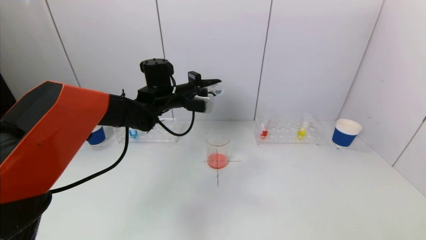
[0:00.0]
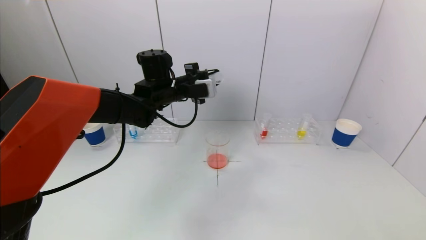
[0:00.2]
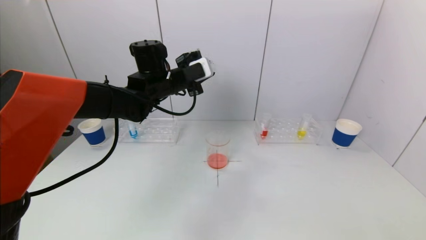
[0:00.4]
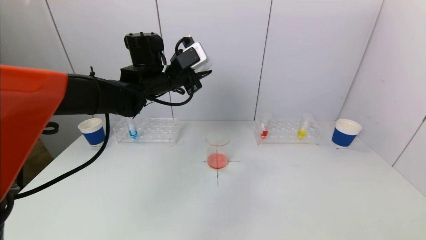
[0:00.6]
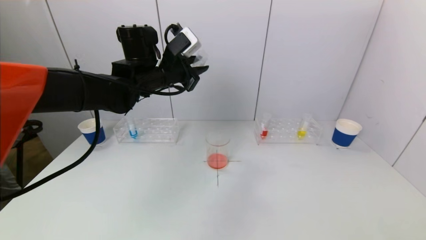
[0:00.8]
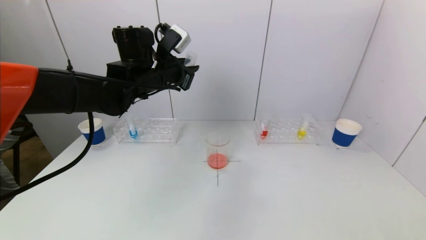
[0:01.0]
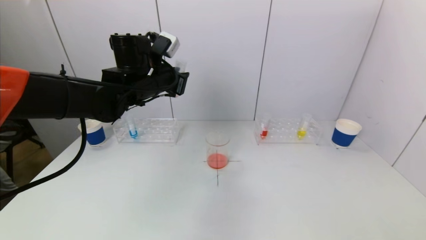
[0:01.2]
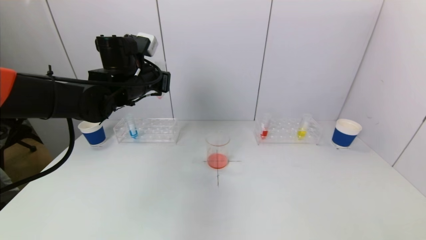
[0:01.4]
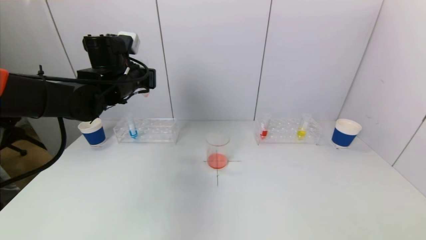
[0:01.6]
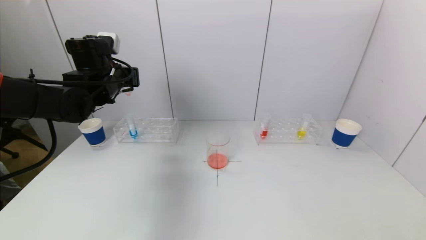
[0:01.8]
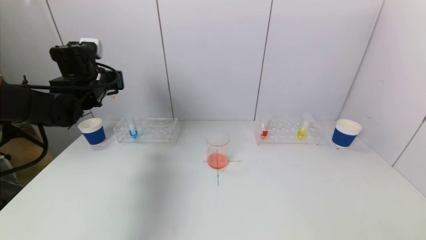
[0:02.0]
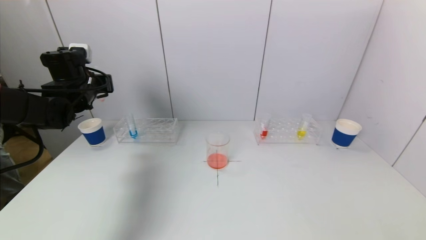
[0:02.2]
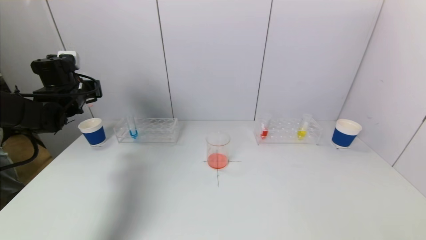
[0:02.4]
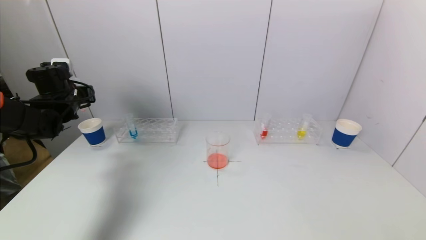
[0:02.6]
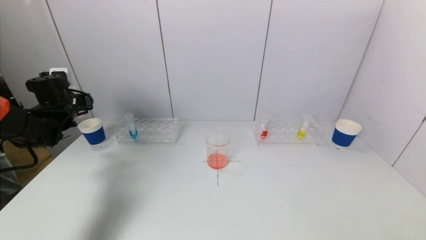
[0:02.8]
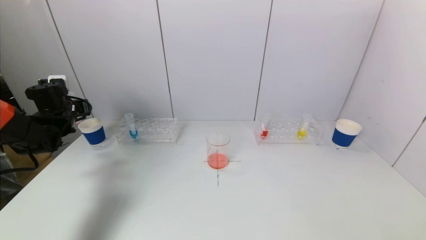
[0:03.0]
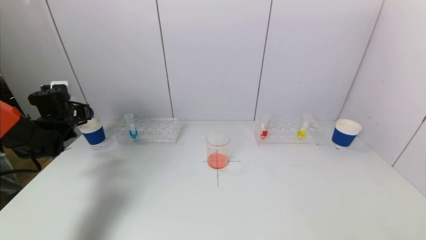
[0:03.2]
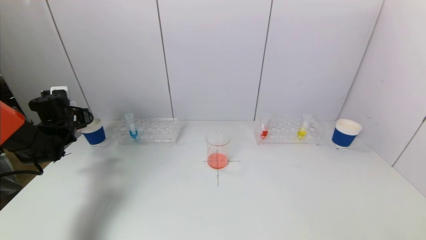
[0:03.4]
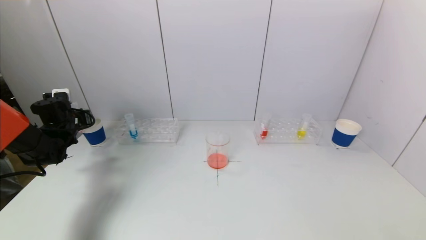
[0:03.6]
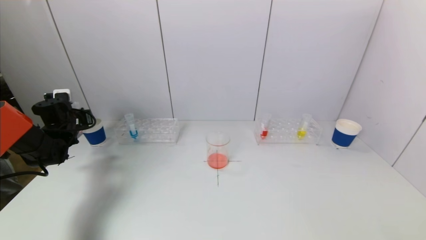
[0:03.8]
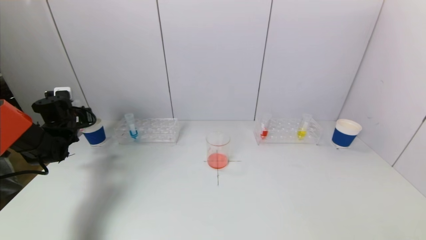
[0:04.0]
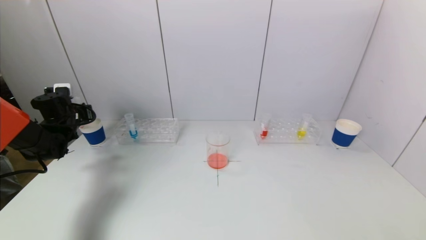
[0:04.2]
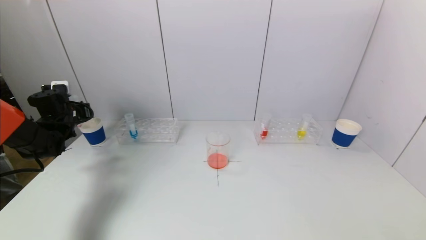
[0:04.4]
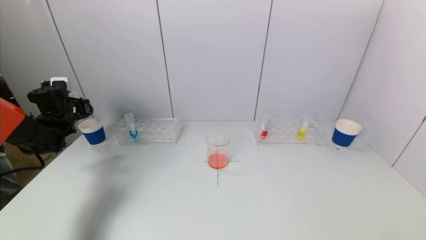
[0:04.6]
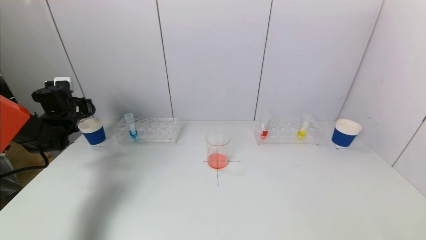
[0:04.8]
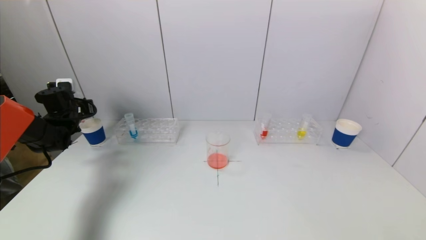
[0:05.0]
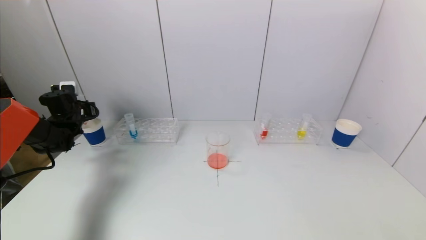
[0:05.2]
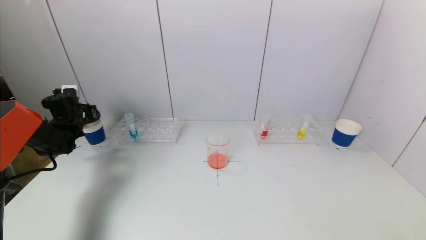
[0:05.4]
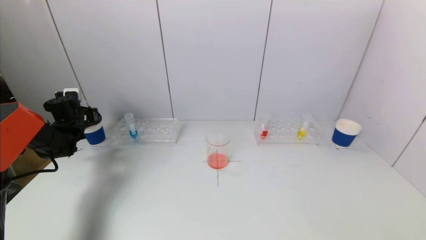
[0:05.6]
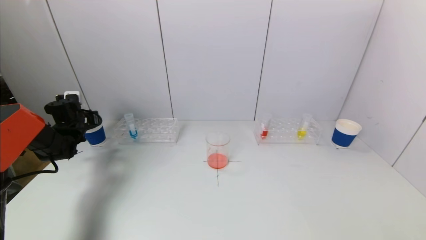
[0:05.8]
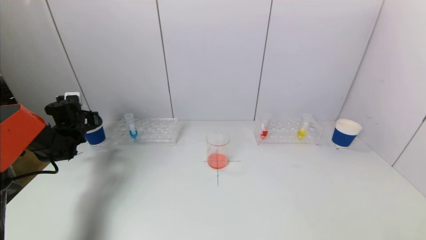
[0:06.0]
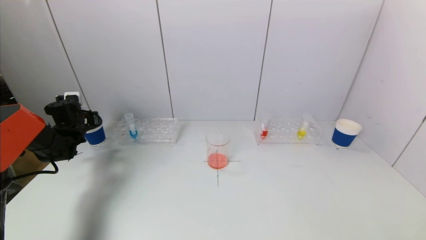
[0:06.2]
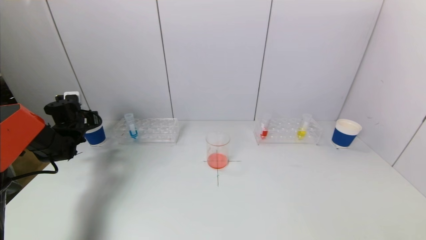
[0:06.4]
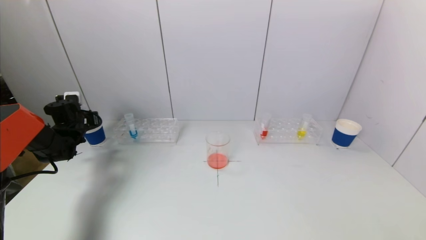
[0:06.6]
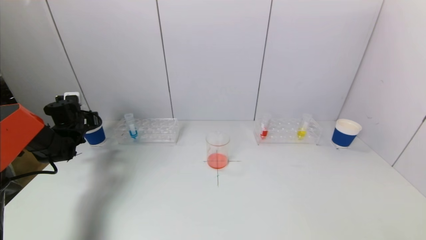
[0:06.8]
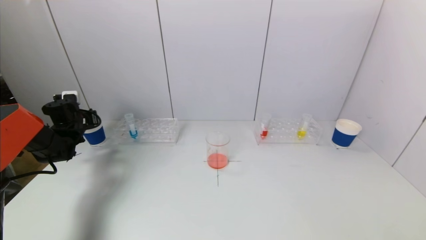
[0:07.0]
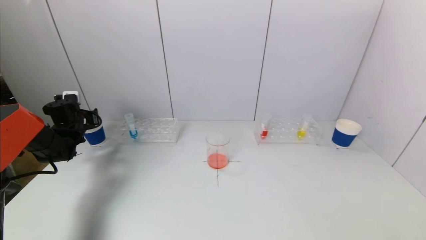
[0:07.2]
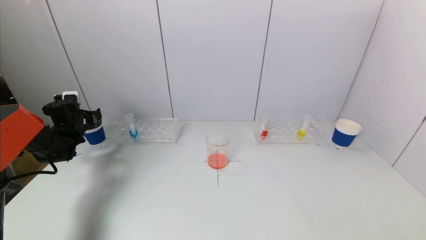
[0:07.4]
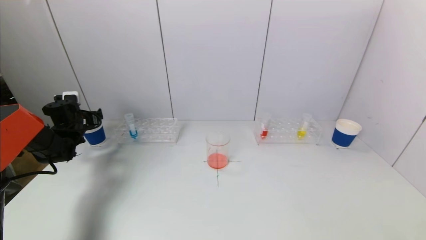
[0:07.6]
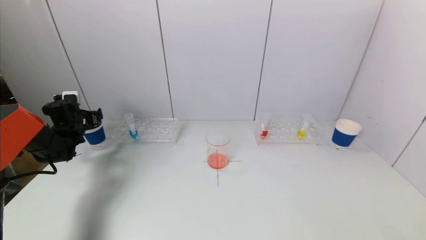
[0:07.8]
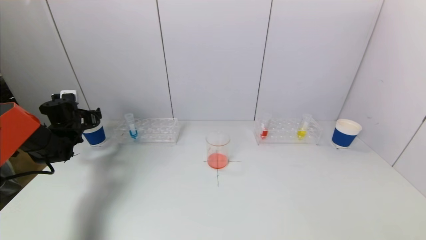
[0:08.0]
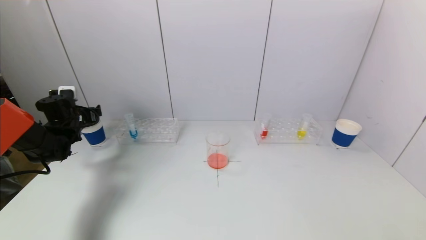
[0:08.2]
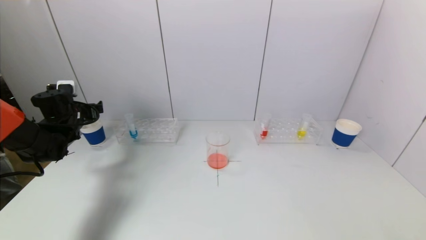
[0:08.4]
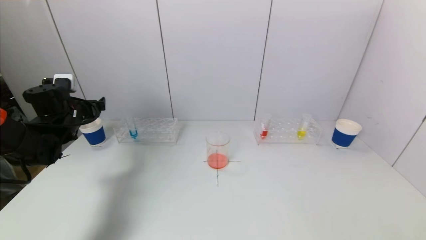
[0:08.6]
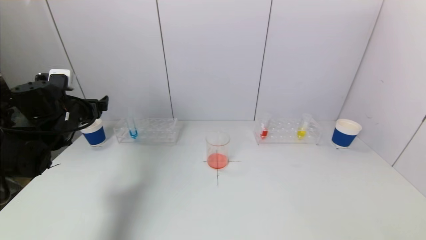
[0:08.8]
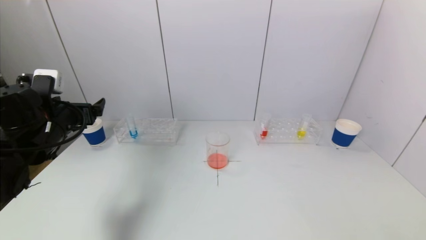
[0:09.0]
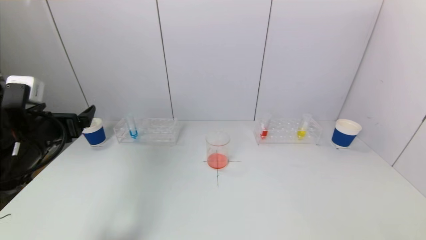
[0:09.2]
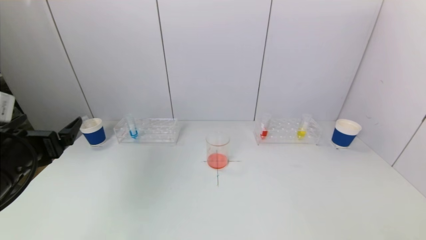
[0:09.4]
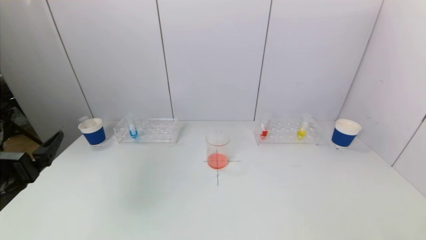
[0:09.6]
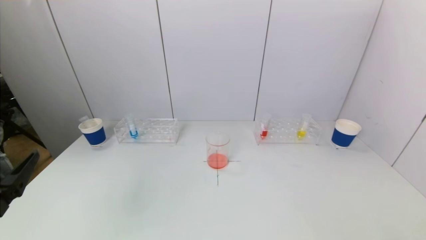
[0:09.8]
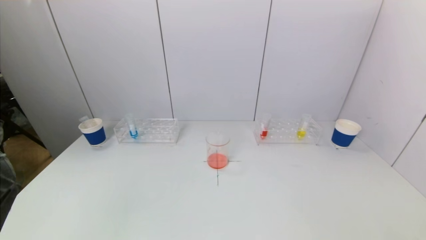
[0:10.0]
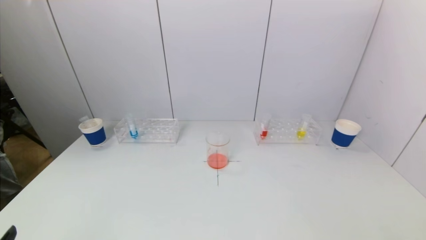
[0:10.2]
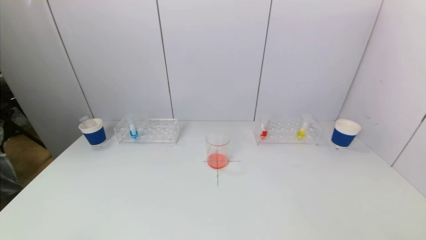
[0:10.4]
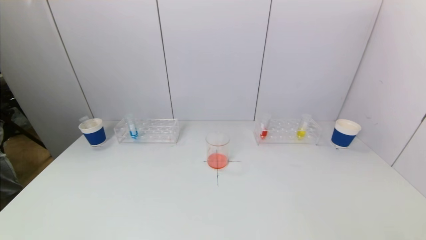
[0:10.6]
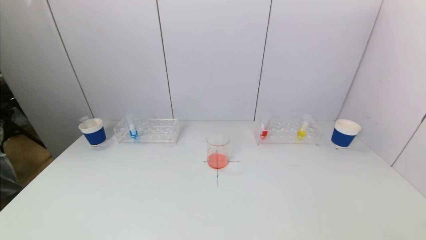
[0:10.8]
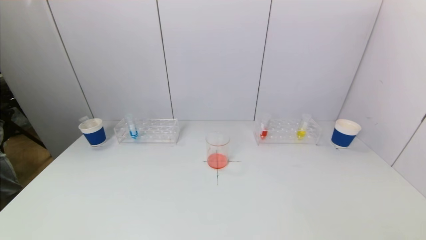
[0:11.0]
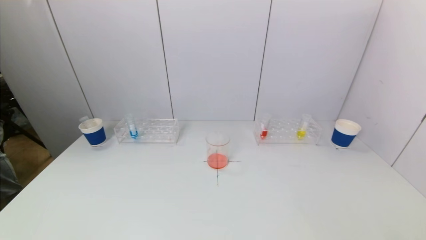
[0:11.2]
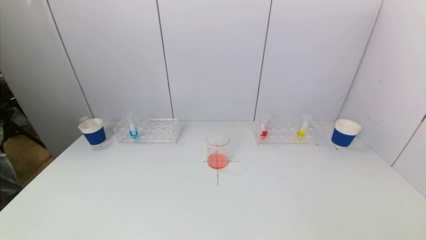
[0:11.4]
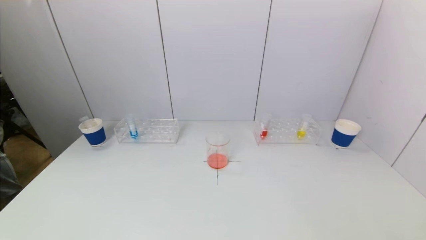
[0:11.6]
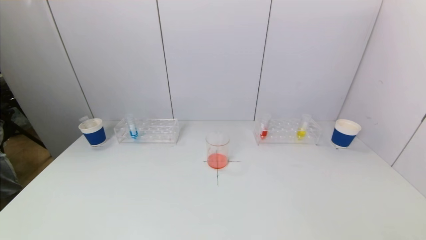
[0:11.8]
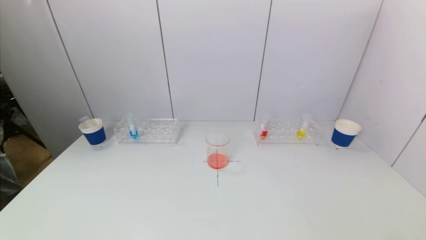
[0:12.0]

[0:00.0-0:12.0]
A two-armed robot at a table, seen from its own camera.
Task of the whole recording: pick up a test tube with pigment on left test tube rack and a test tube with pigment on right test tube rack by grippers and pour them into the beaker.
Step, 0:00.0 to 0:07.4: Place the test tube into the paper cup with the left gripper.
0:00.0 to 0:01.6: The left gripper shifts approximately 10 cm to the left.
0:01.6 to 0:03.0: The left gripper is displaced to the left and downward by some 20 cm.
0:03.0 to 0:04.4: The grippers make only small movements.
0:04.4 to 0:06.0: The left gripper shifts by about 5 cm.
0:06.0 to 0:07.6: The left gripper opens up.
0:07.6 to 0:09.0: The left gripper travels backward, to the right and upward by some 25 cm.
0:09.0 to 0:10.4: The left gripper is displaced backward by some 30 cm.

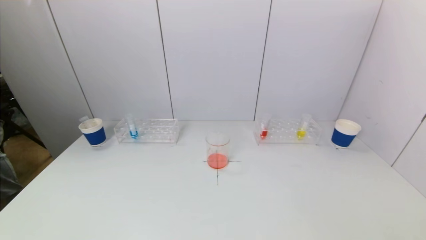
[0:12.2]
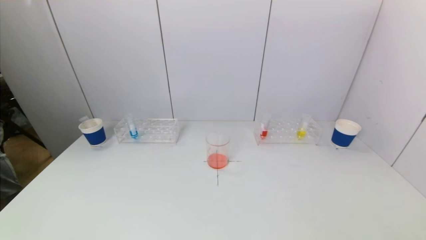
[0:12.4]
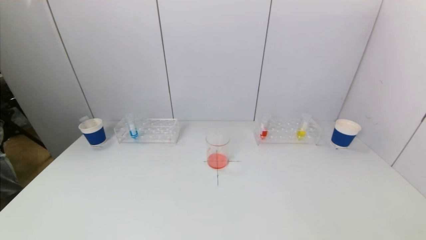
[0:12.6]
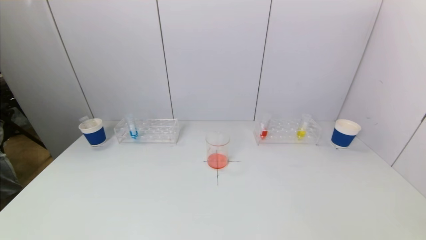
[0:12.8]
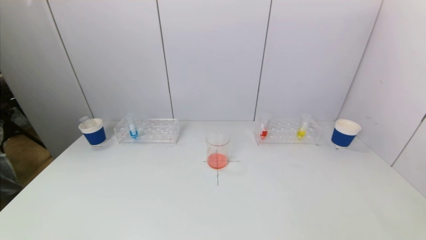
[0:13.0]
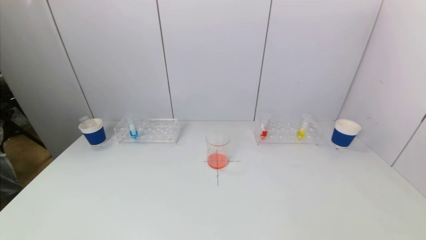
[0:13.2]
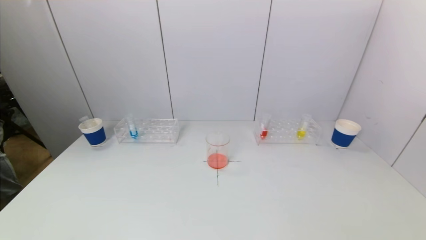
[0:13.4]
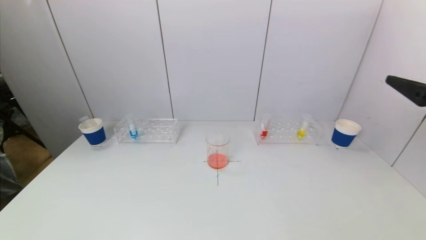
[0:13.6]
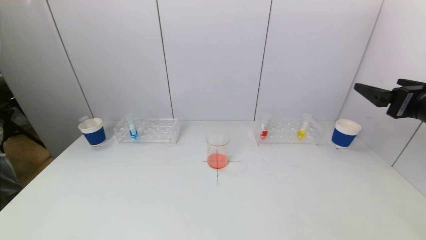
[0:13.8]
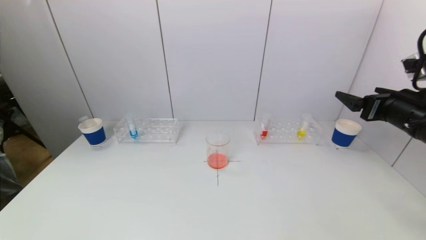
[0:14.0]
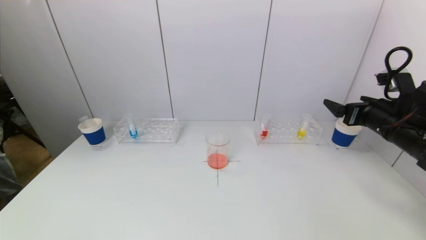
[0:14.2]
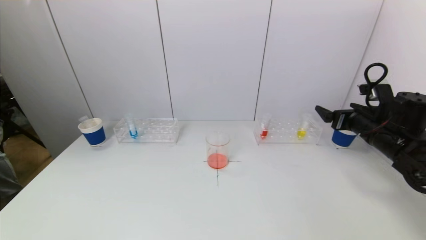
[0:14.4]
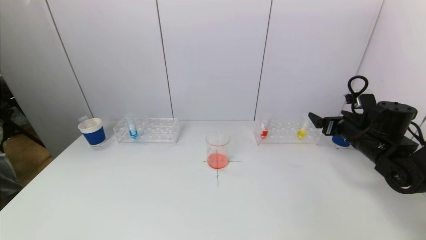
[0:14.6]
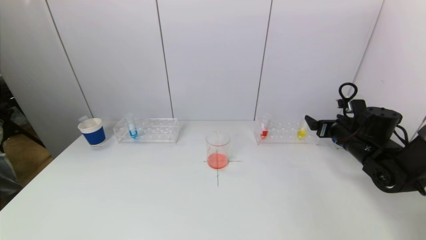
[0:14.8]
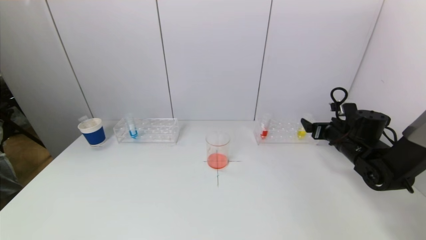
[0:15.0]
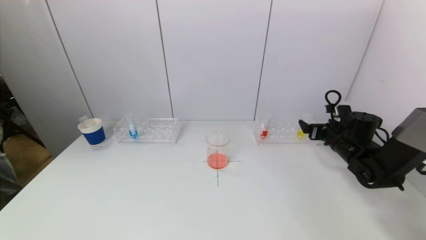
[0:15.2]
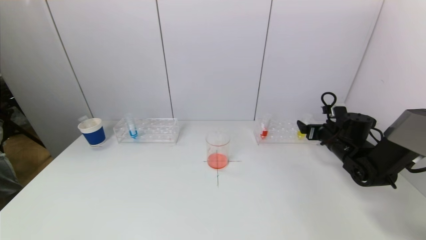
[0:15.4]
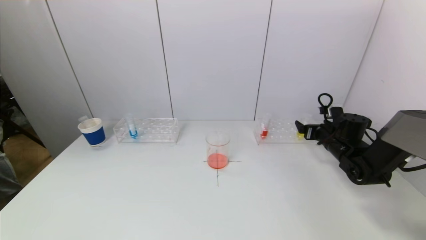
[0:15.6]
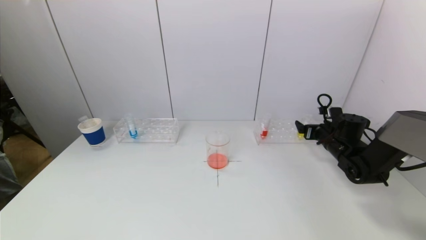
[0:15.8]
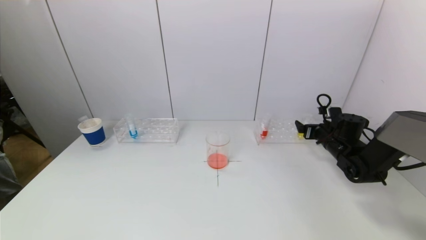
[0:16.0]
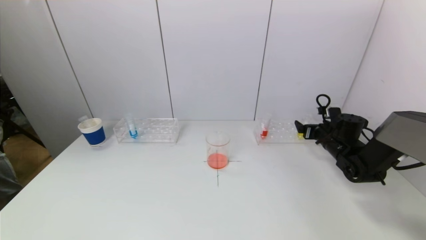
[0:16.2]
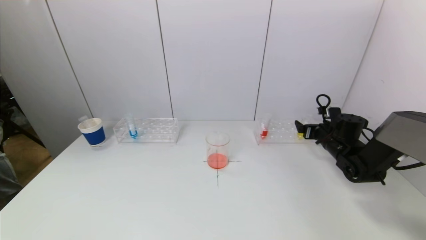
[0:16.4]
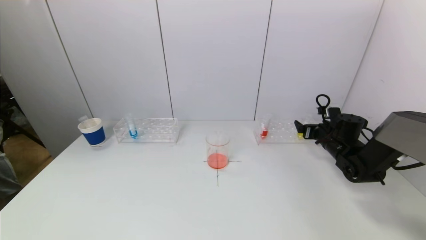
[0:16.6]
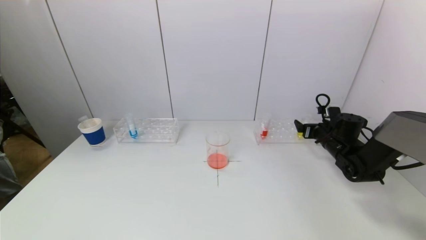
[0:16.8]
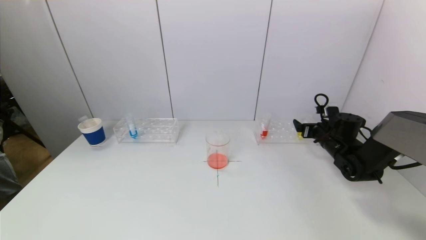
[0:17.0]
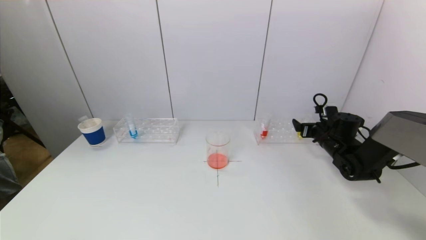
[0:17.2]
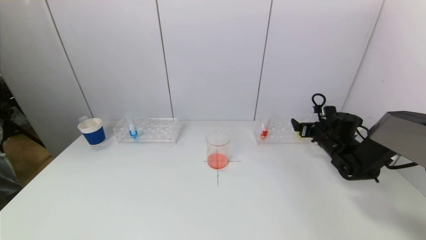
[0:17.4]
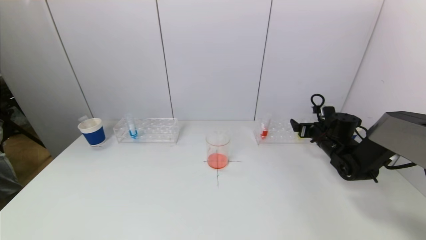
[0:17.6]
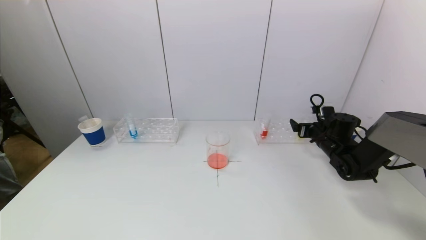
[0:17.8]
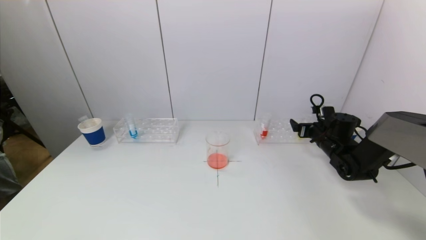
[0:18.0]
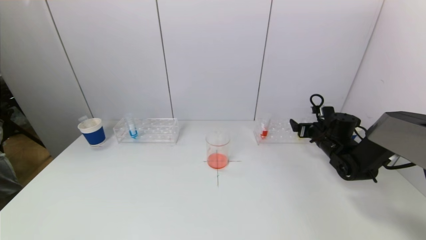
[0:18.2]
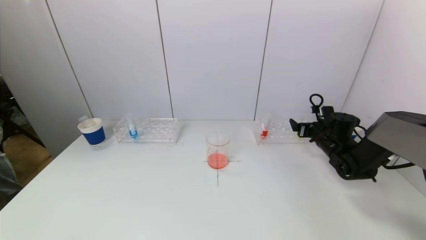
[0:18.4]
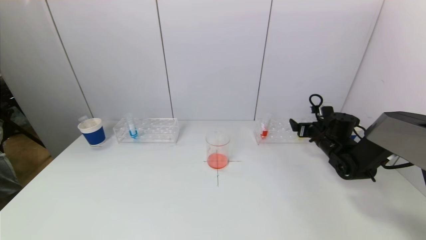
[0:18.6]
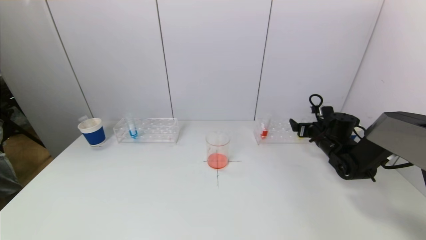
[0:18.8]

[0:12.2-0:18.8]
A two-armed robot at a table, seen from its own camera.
Task of the whole recording: pick up a test tube with pigment on left test tube rack and a test tube with pigment on right test tube rack by grippers and pour them into the beaker.
0:12.2 to 0:13.8: The right gripper moves forward and upward, roughly 30 cm.
0:13.8 to 0:15.4: The right gripper travels downward and forward by about 25 cm.
0:15.4 to 0:17.2: The grippers move only a little.
0:17.2 to 0:18.8: The two grippers keep their place.
